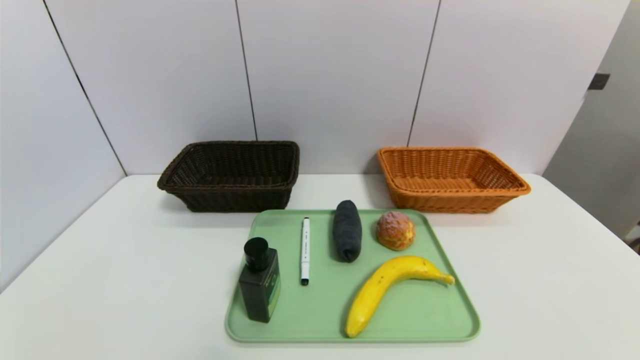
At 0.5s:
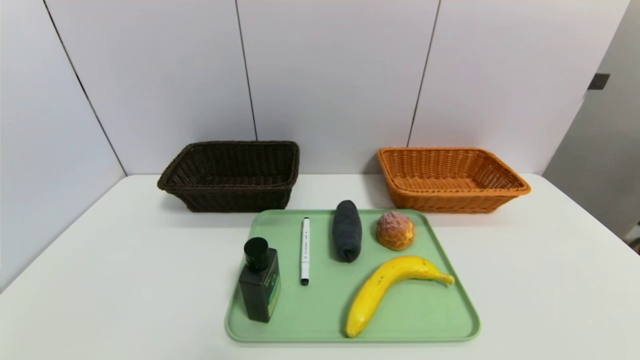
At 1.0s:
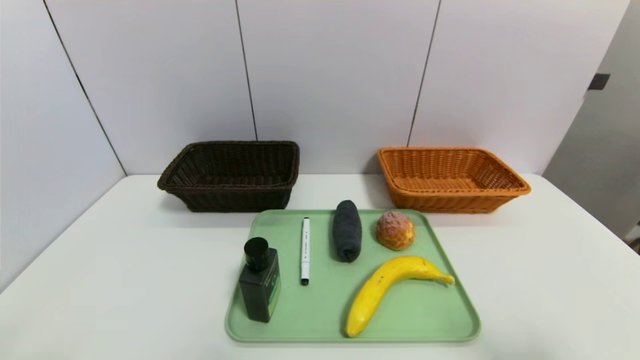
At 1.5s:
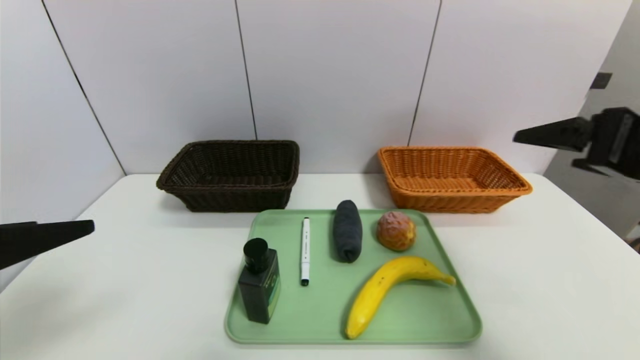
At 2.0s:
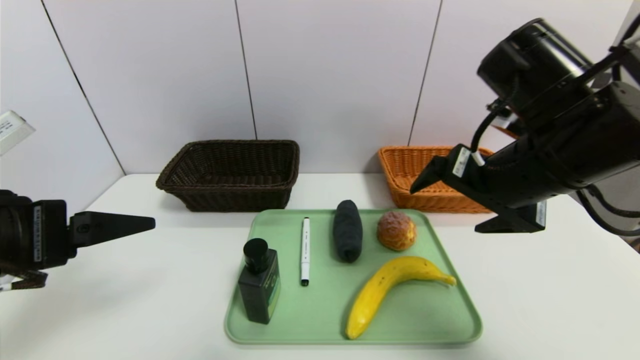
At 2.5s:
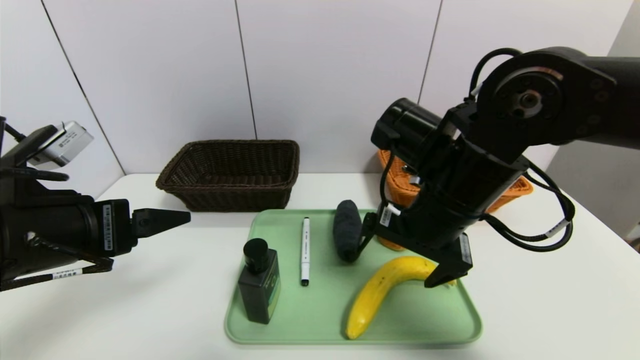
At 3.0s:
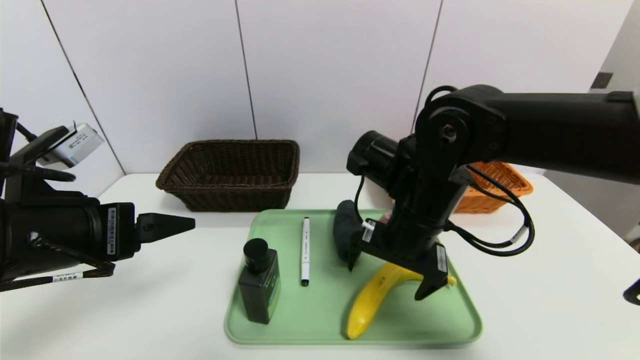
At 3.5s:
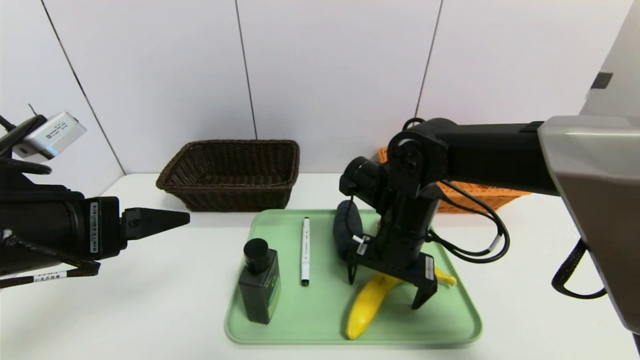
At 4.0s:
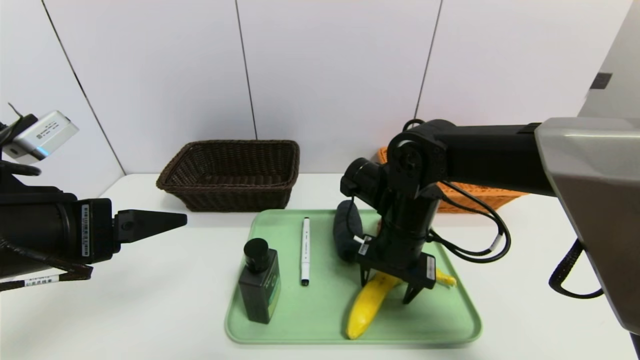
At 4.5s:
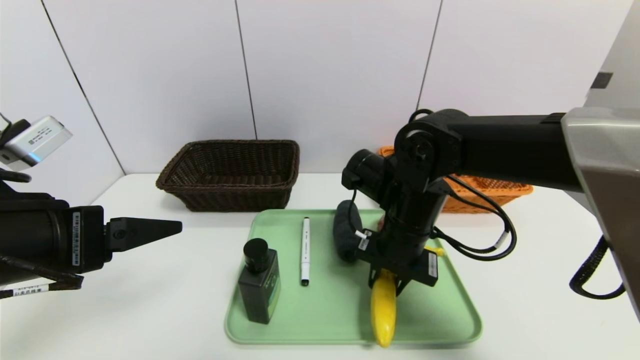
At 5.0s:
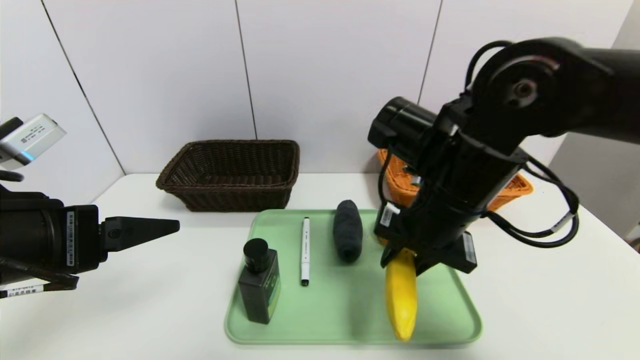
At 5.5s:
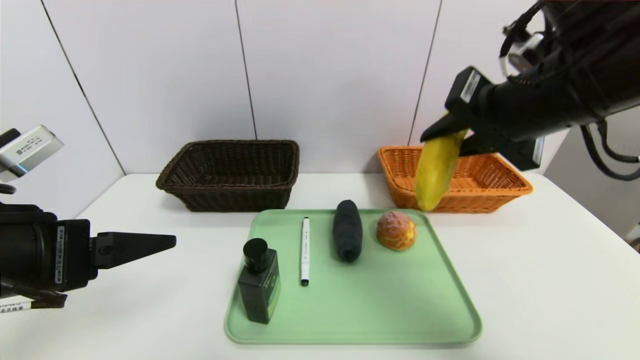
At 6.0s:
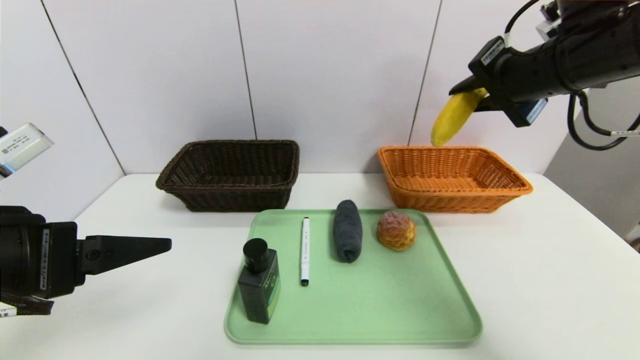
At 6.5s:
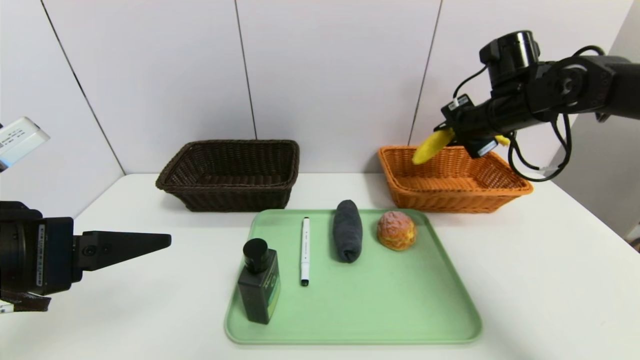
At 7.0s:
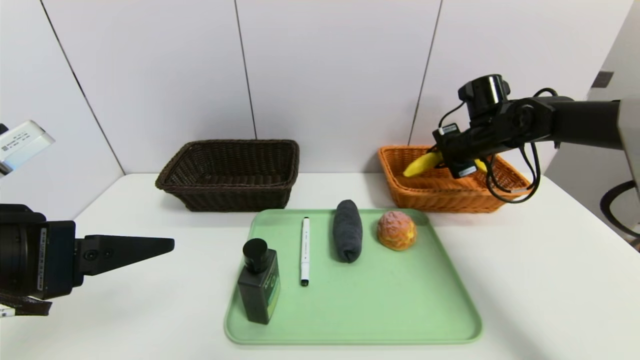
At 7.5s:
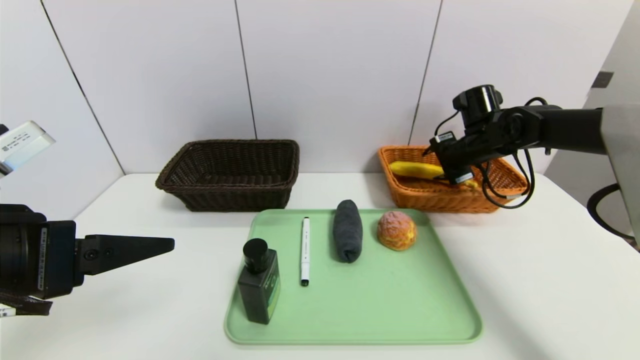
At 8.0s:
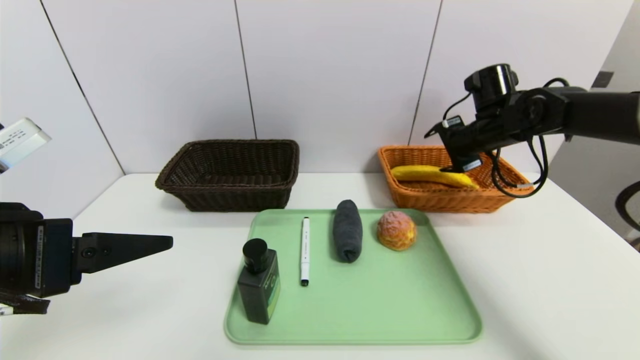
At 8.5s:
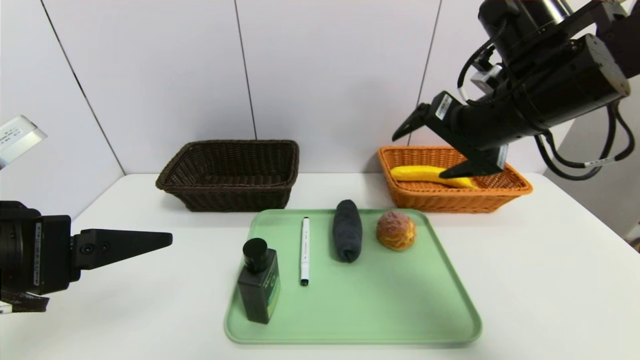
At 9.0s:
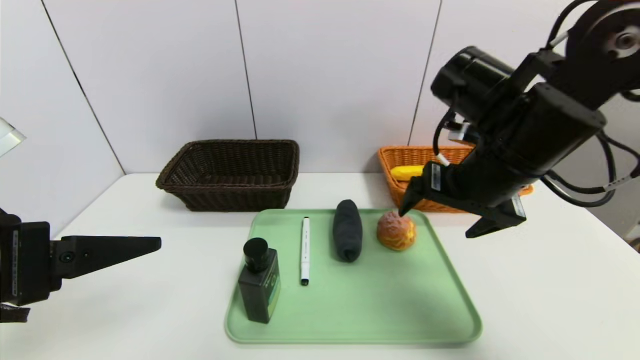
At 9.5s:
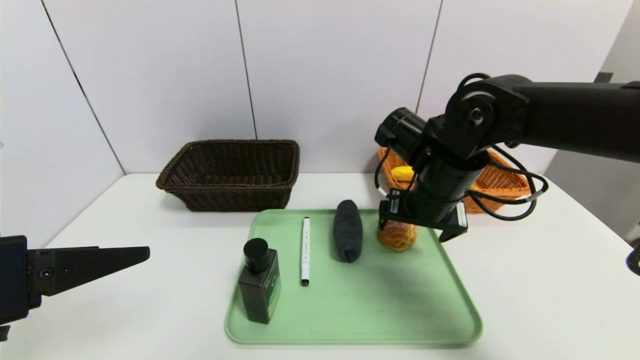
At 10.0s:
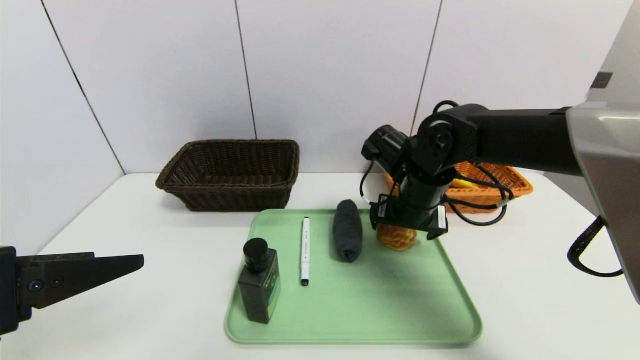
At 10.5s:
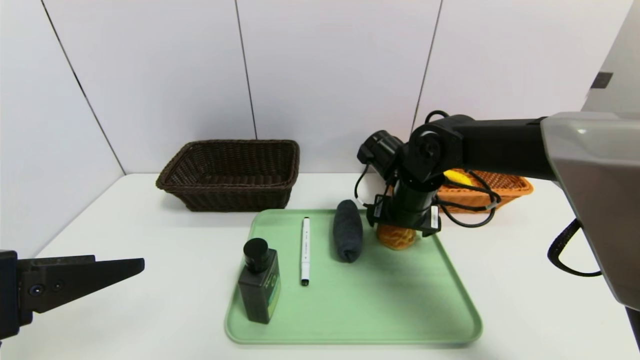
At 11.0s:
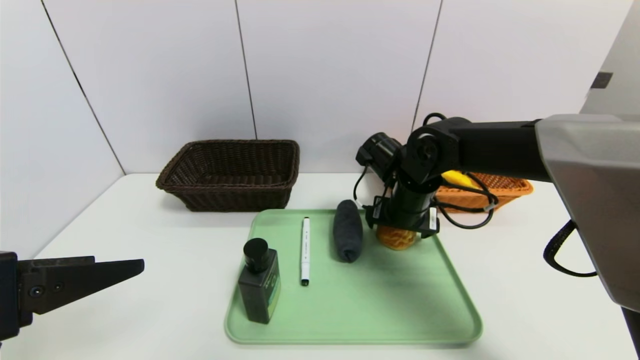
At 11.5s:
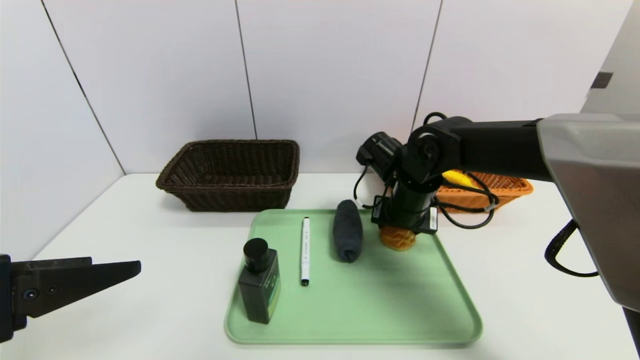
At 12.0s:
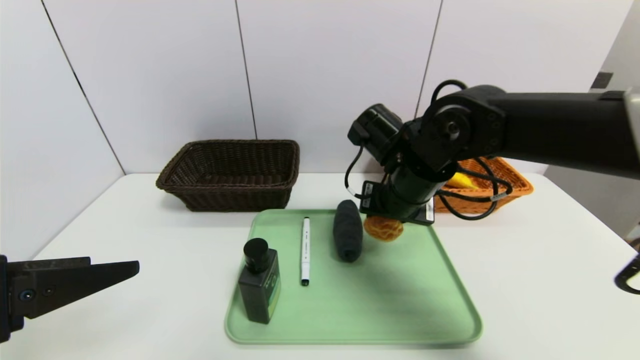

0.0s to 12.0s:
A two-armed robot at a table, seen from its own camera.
Task of the whole recording: place the food in the right basket with the right gripper, and place the non food items in the left basket with the left gripper.
Step, 0.0s to 8.0s: Grasp the banana and put it in the right basket.
0.0s to 2.0s: The left gripper is displaced upward and forward by roughly 25 cm. The right gripper shifts about 35 cm forward, upward and to the left.
2.0s to 4.0s: The right gripper heads downward, to the left and forward, covering about 15 cm, and closes its fingers.
4.0s to 6.0s: The right gripper goes about 25 cm upward and to the right, and closes its fingers.
6.0s to 8.0s: The right gripper heads forward and downward, covering roughly 15 cm, and opens its fingers.
8.0s to 10.0s: The right gripper travels to the left, backward and downward by roughly 15 cm.
10.0s to 12.0s: The right gripper shifts by approximately 5 cm, and closes up.

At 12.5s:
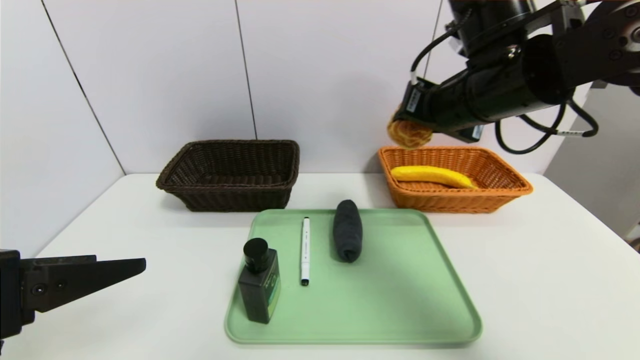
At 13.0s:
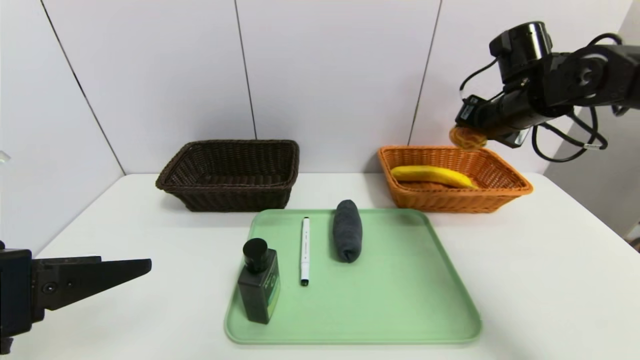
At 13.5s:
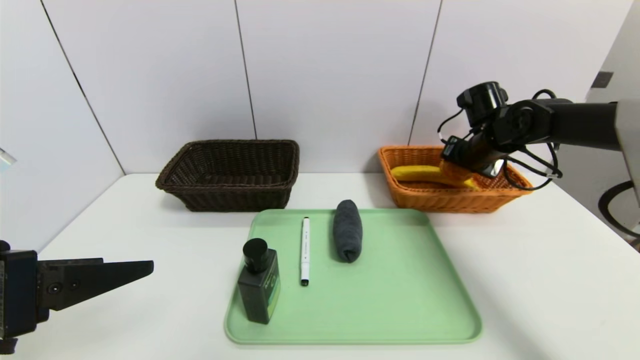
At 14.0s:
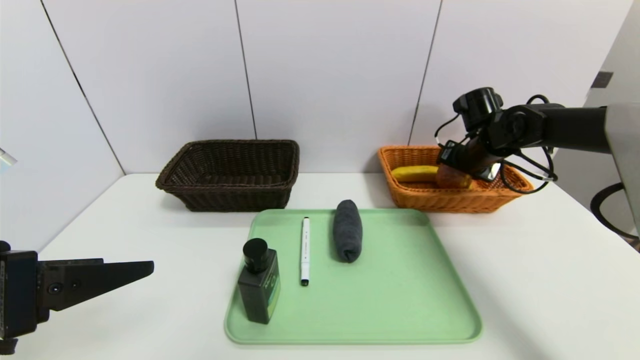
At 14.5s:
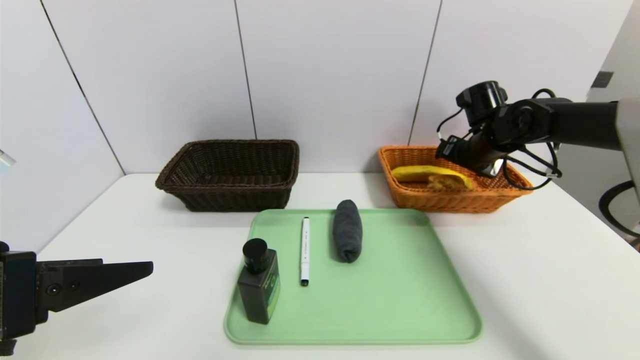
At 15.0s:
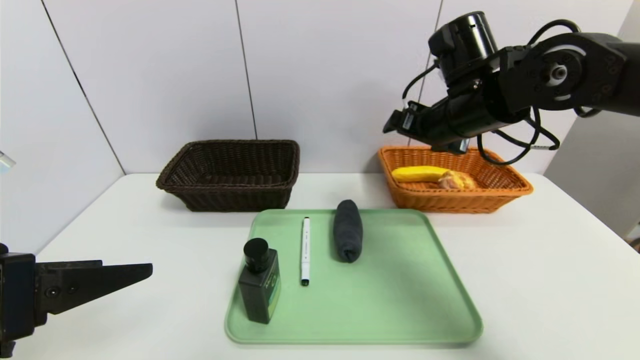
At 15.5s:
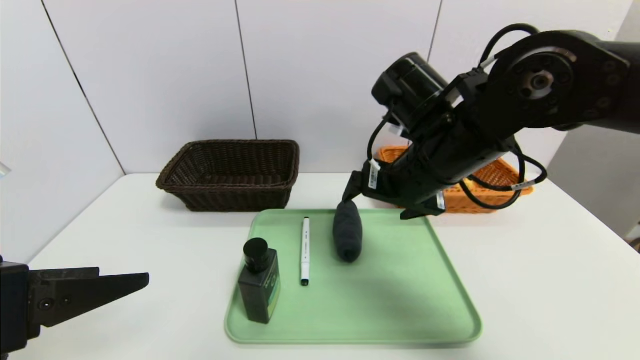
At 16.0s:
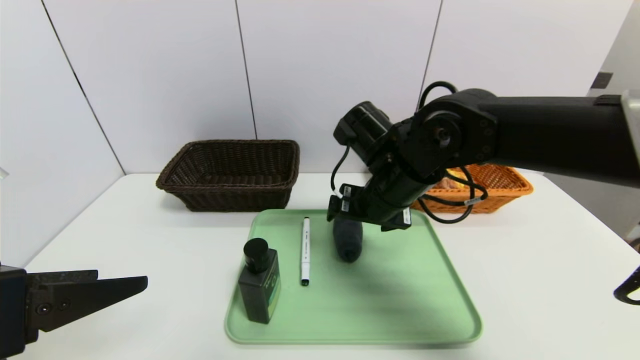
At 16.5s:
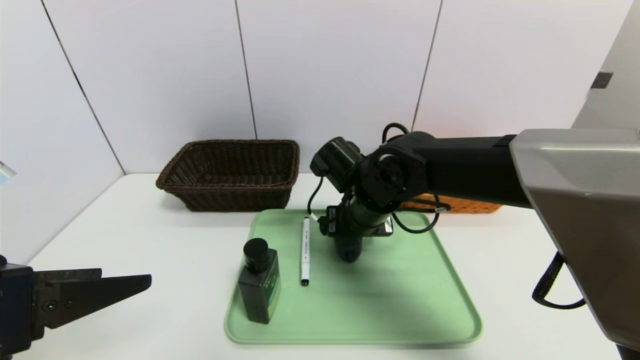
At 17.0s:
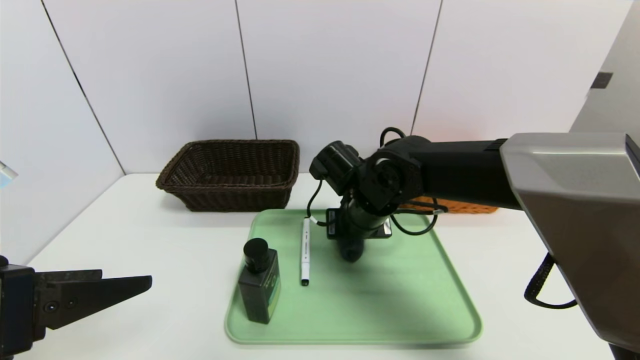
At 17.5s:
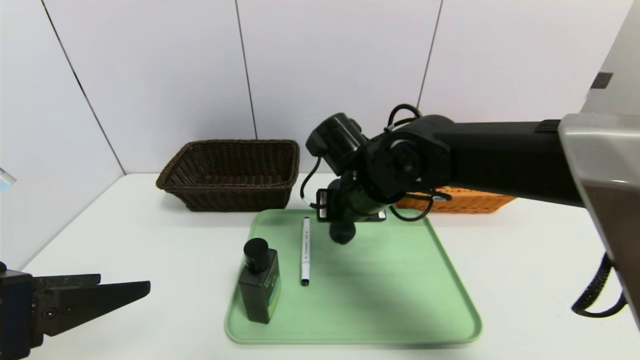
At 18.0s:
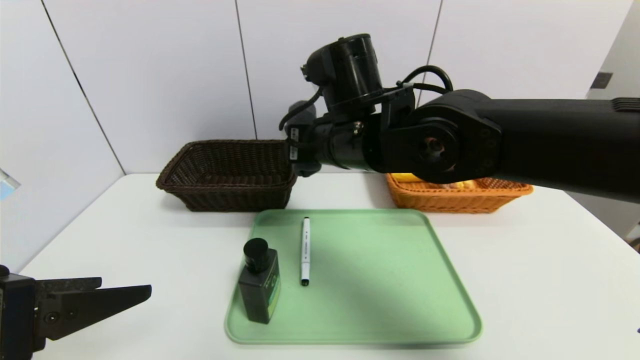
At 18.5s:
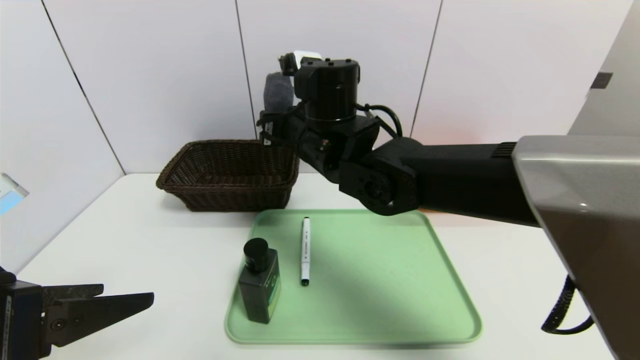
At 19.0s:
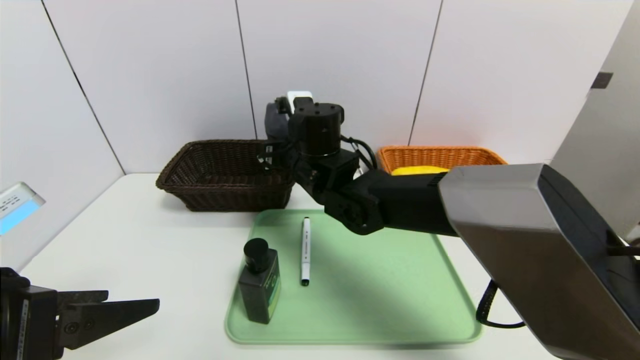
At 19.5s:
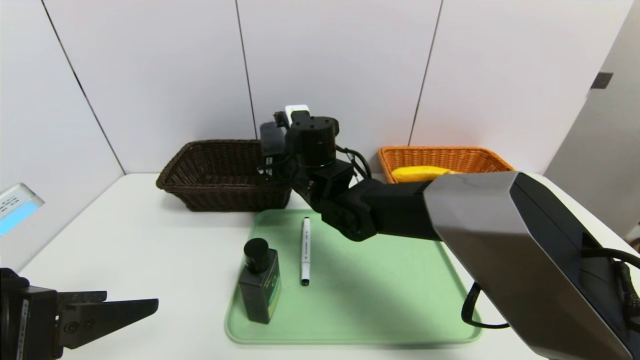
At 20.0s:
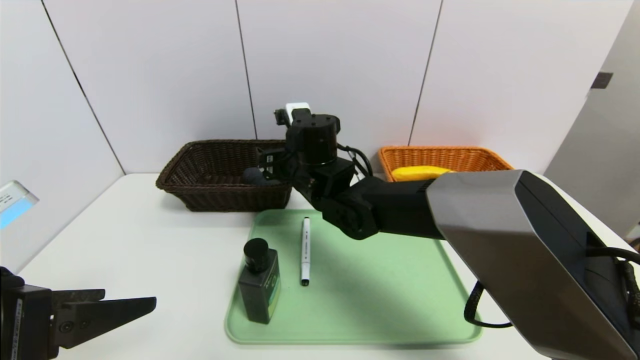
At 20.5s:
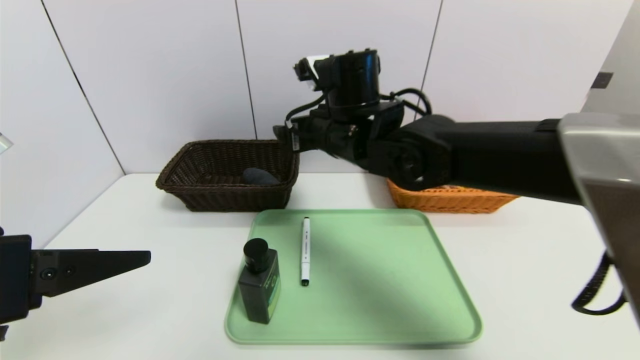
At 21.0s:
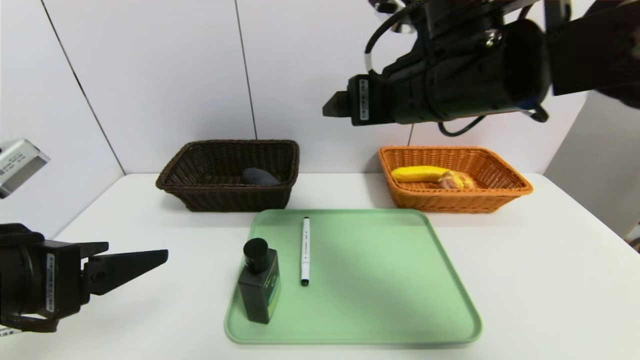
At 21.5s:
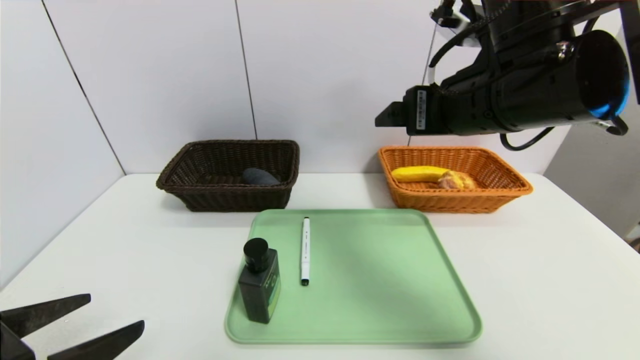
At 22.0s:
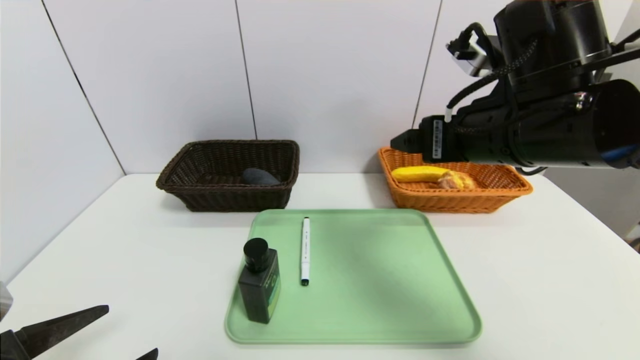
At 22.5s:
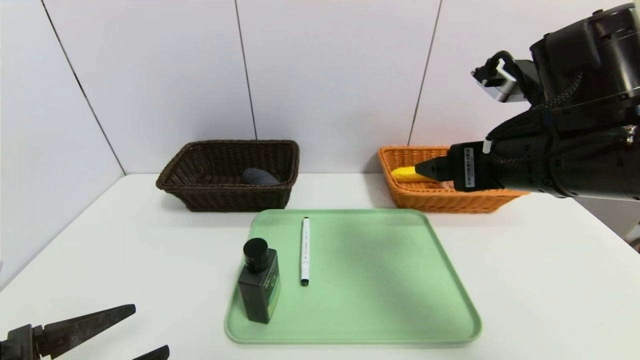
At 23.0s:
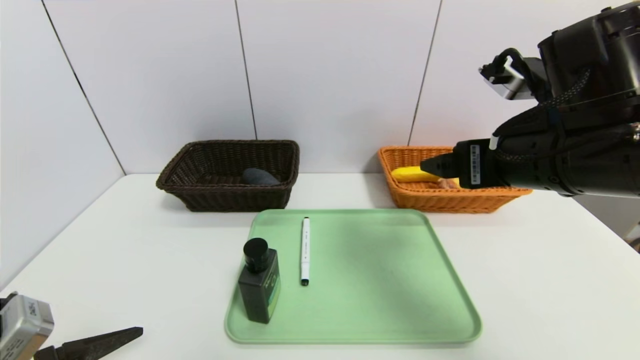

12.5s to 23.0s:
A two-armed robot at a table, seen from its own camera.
Task of the whole recording: place the food in the right basket with the right gripper, and place the non food items in the left basket with the left gripper.
Step, 12.5s to 14.5s: Grasp the round bread and put it in the right basket.
12.5s to 14.5s: The right gripper is displaced forward, downward and to the right by roughly 20 cm, and opens.
14.5s to 16.5s: The right gripper goes approximately 25 cm to the left and backward.
16.5s to 19.0s: The right gripper heads to the left, covering approximately 10 cm, moves some 10 cm upward and comes back, and closes.
19.0s to 21.0s: The right gripper travels upward, to the right and backward by about 20 cm, and opens its fingers.
21.0s to 23.0s: The left gripper heads downward, covering about 10 cm; the right gripper is displaced to the right and downward by about 10 cm.
